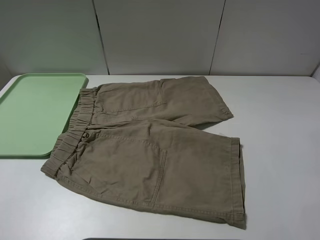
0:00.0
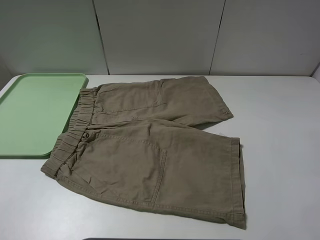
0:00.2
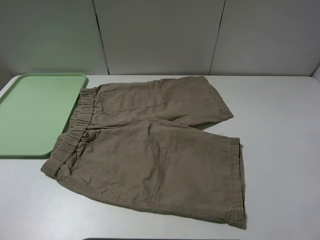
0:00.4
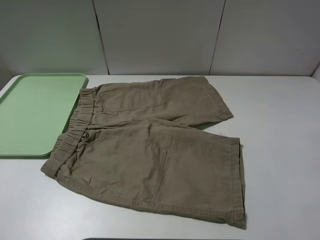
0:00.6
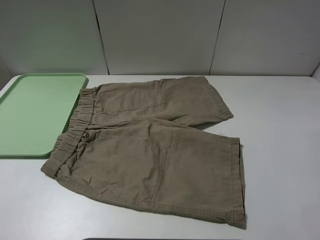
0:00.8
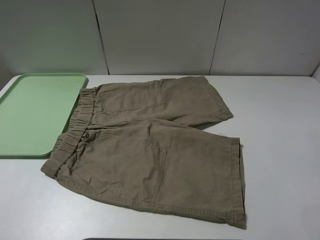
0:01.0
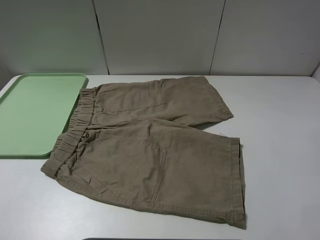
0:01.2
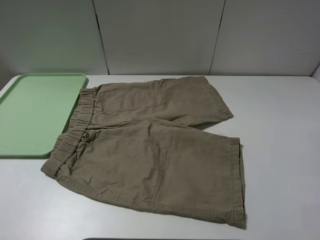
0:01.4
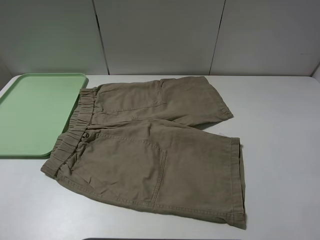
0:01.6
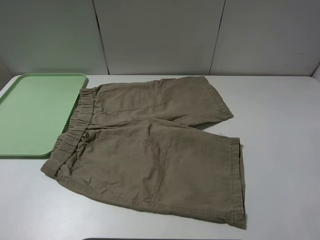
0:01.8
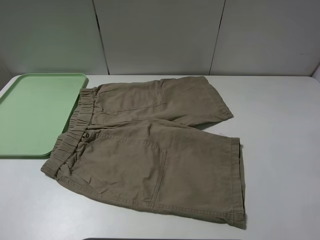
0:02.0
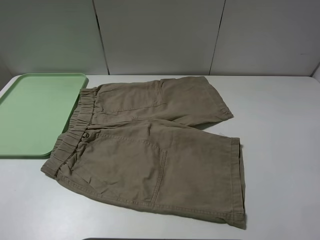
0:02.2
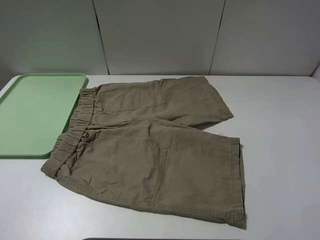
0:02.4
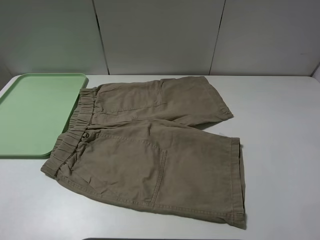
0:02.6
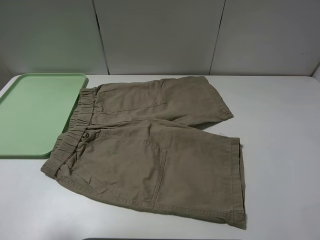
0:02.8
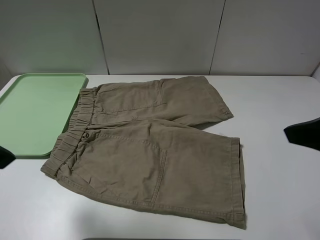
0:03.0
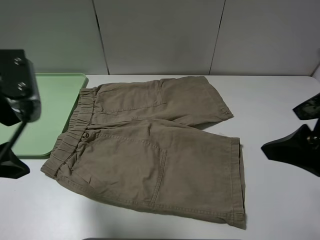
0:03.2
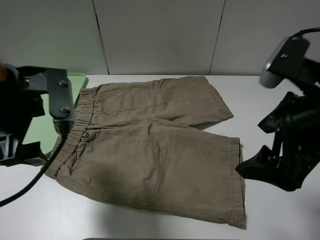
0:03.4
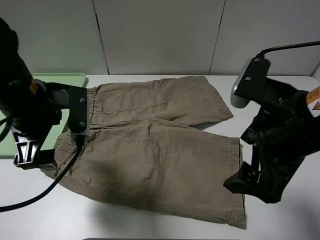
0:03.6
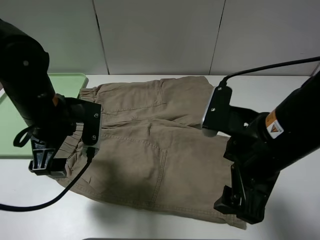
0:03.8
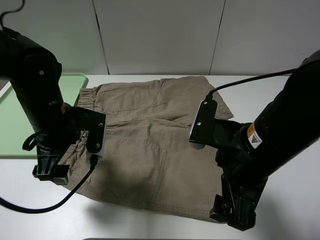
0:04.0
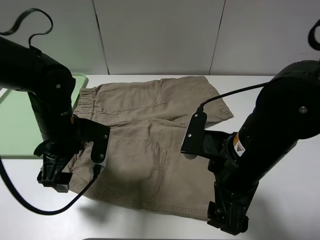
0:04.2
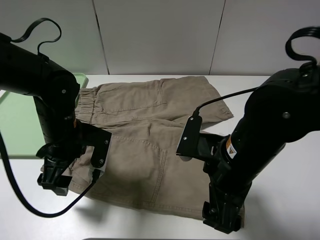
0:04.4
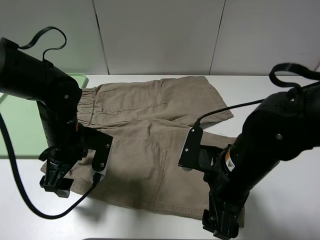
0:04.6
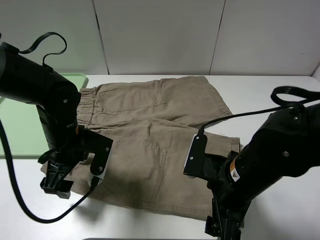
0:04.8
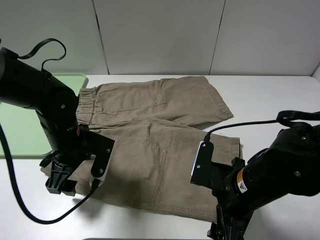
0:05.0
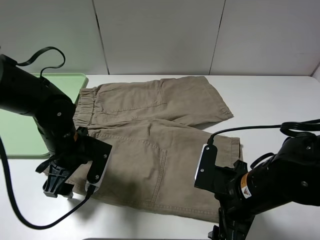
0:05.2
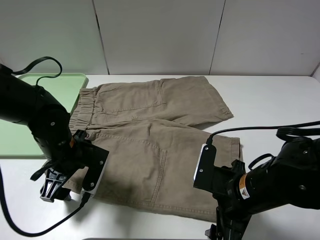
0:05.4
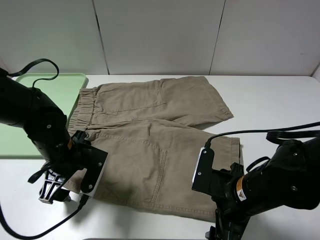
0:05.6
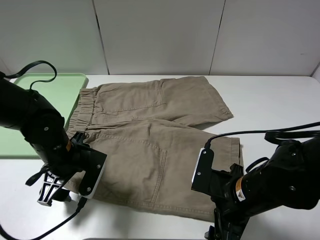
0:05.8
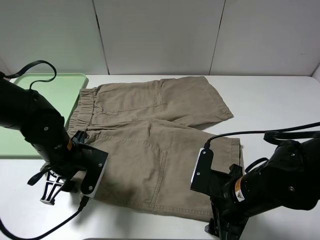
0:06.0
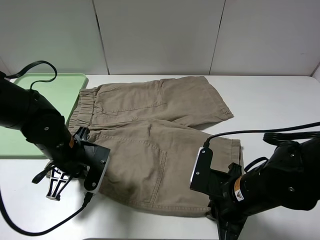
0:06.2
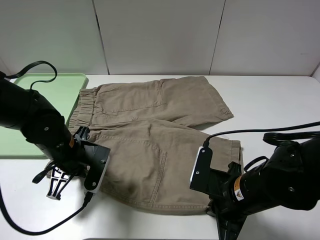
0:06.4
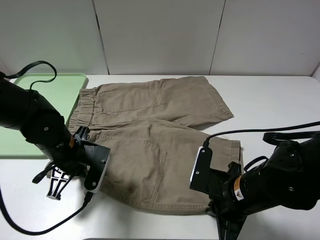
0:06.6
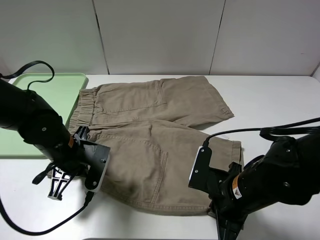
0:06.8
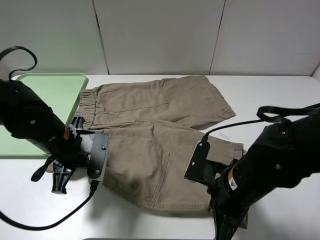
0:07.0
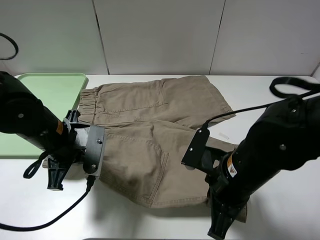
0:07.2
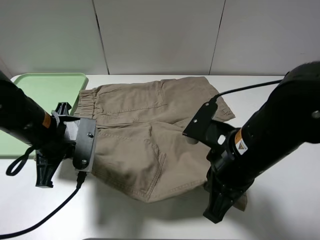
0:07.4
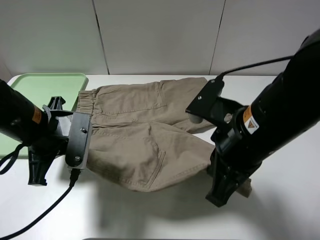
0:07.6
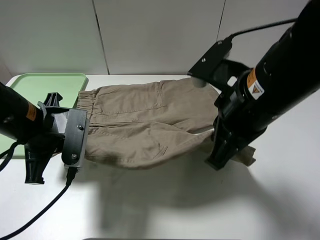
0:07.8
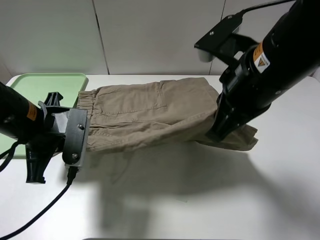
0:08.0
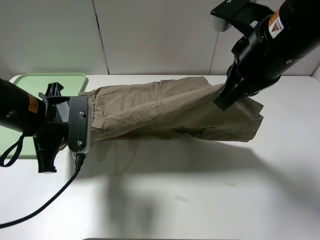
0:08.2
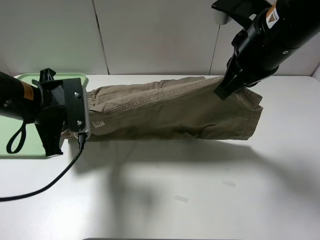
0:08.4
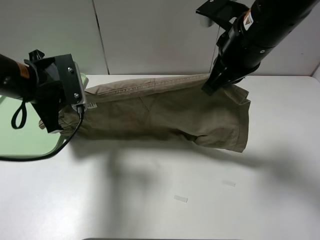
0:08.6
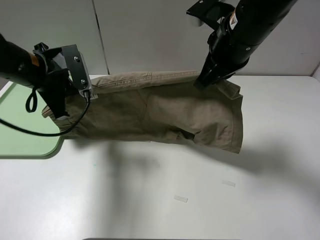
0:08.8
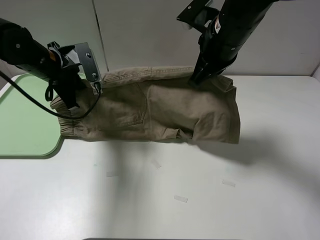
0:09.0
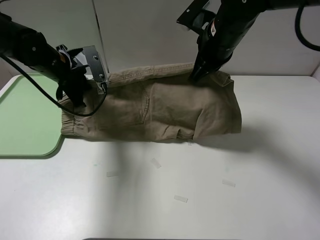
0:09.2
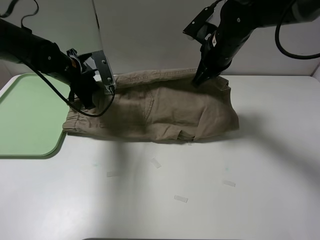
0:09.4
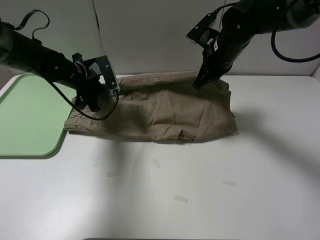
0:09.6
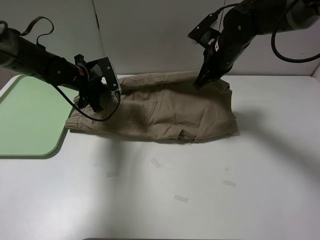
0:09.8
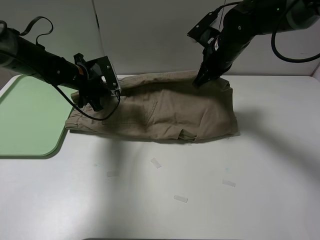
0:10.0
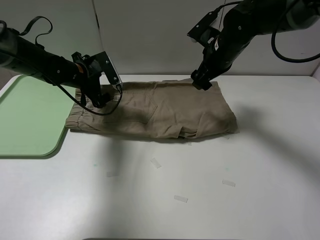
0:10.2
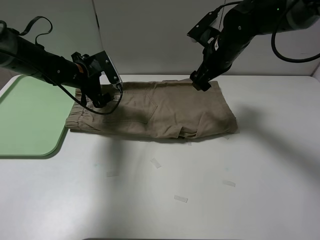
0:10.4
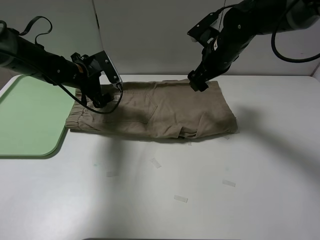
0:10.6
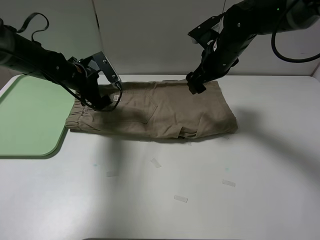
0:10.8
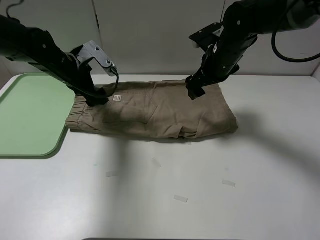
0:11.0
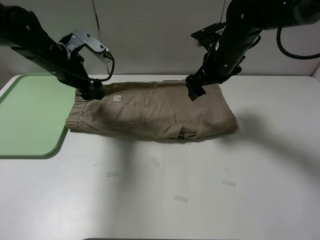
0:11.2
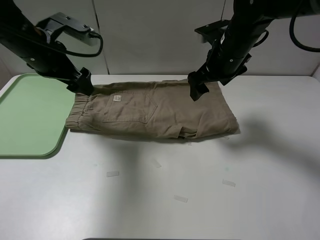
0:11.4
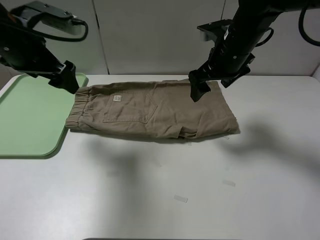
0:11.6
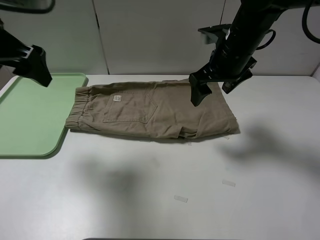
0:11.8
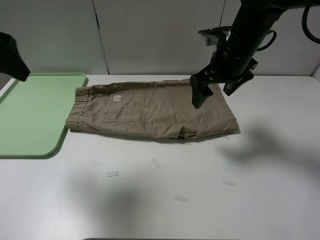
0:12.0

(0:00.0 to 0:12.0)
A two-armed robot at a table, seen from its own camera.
Task of the whole recording: fold the khaki jeans in half with two grippers, then fold them in half again, and use the left claw to place the folded fold khaki jeans on the tray.
Step, 0:00.0 - 0:06.4: Grasp the khaki trousers with the left gripper.
Step, 0:06.6 - 0:10.0: Fold the khaki trousers upwards with the left gripper.
0:00.0 - 0:01.6: Neither gripper changes place.
0:01.6 - 0:03.0: The left gripper shifts about 15 cm forward and to the right; the right gripper is displaced forward and to the left by about 15 cm.
0:03.0 - 0:04.4: The right gripper shifts some 20 cm downward and to the left, while the left gripper shifts some 20 cm downward, forward and to the right.
0:04.4 - 0:06.0: The right gripper heads downward, covering approximately 10 cm; the left gripper closes up.
0:06.0 - 0:07.6: Both grippers travel together upward, roughly 10 cm. The right gripper closes its fingers, while the left gripper closes up.
0:07.6 - 0:09.0: Both grippers move forward, some 15 cm.
0:09.0 - 0:10.4: The right gripper moves forward and downward, roughly 10 cm, and opens up; the left gripper moves downward and forward, some 10 cm, and opens up.
0:10.4 - 0:12.0: The left gripper moves upward and backward, some 30 cm; the right gripper goes about 5 cm backward.

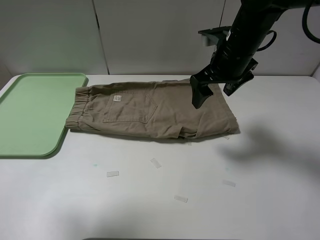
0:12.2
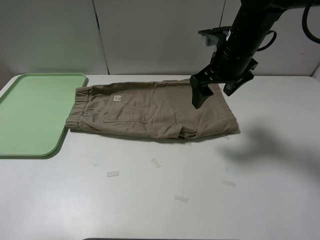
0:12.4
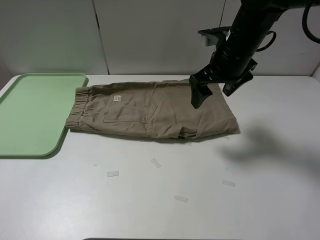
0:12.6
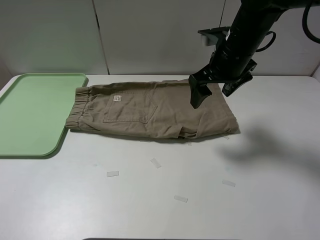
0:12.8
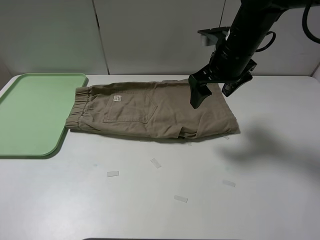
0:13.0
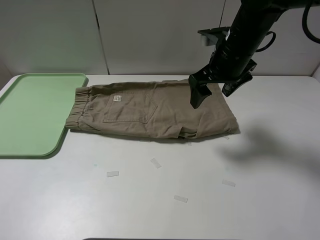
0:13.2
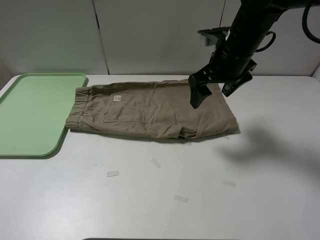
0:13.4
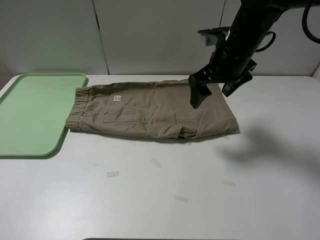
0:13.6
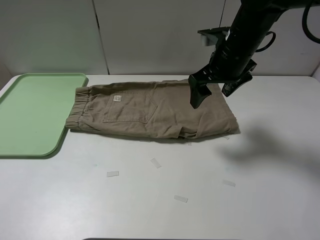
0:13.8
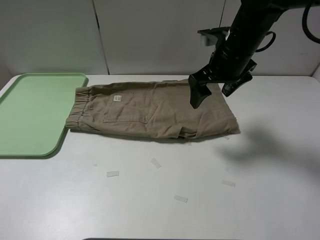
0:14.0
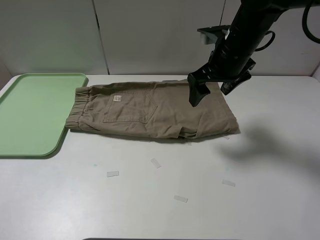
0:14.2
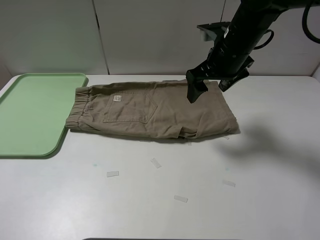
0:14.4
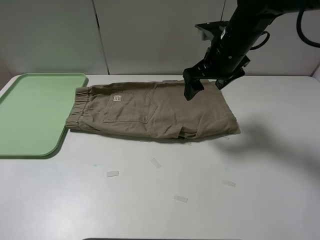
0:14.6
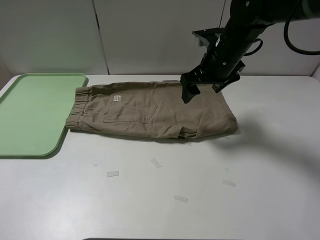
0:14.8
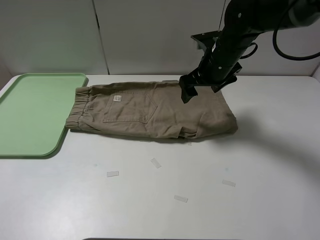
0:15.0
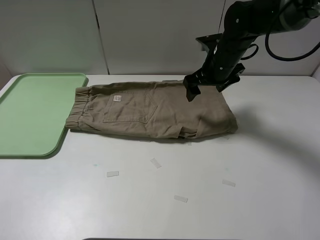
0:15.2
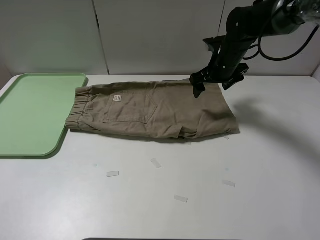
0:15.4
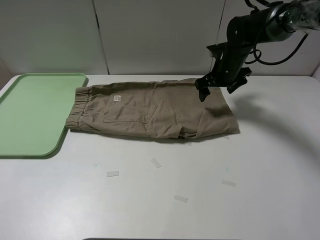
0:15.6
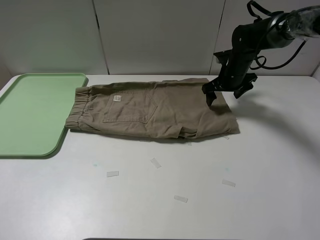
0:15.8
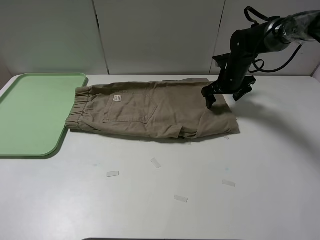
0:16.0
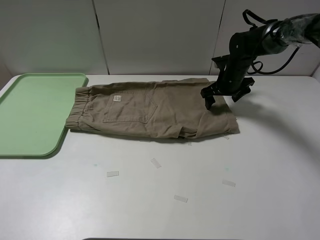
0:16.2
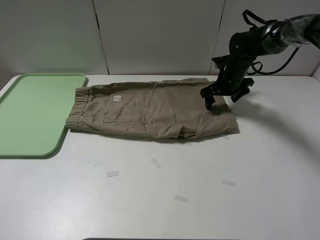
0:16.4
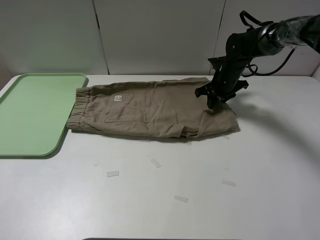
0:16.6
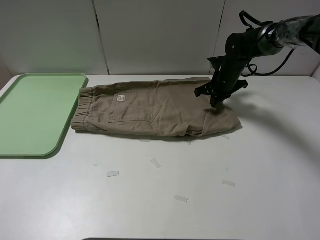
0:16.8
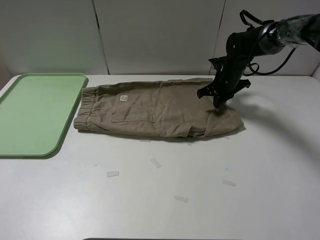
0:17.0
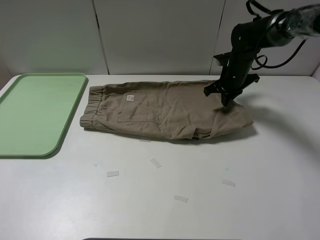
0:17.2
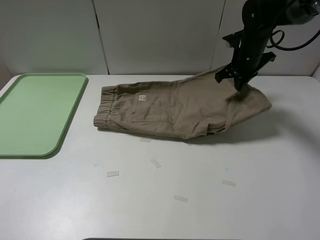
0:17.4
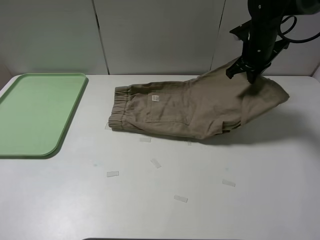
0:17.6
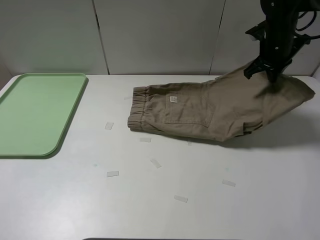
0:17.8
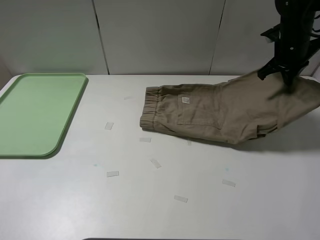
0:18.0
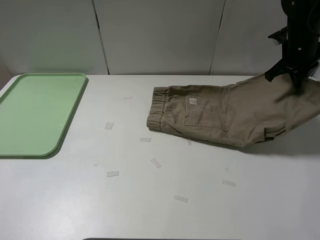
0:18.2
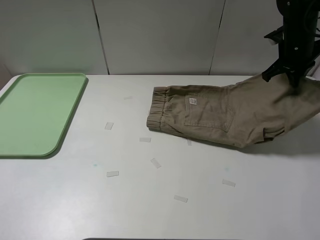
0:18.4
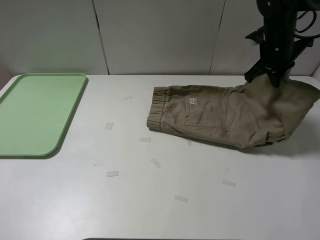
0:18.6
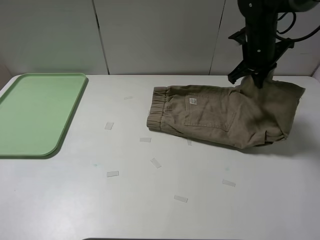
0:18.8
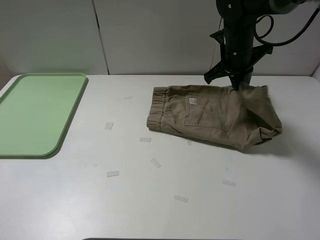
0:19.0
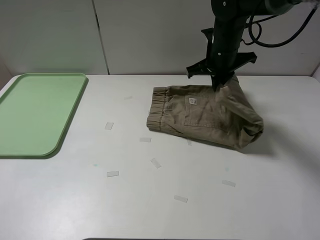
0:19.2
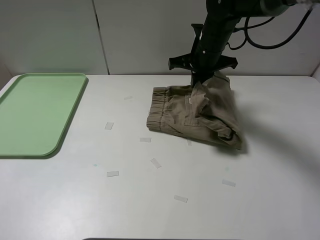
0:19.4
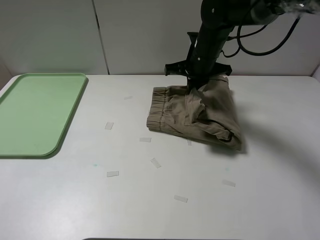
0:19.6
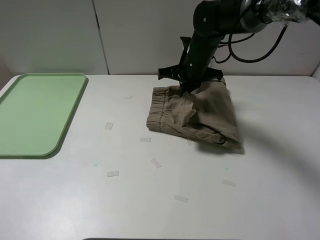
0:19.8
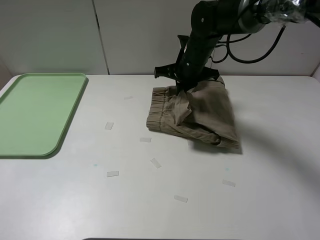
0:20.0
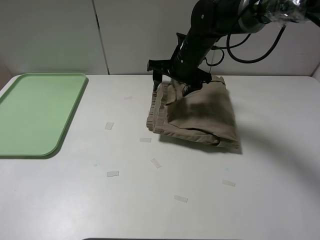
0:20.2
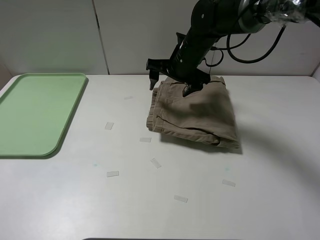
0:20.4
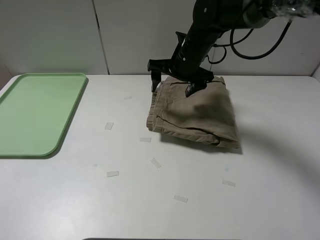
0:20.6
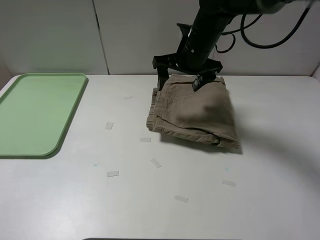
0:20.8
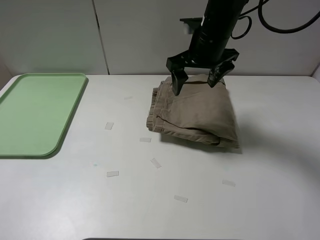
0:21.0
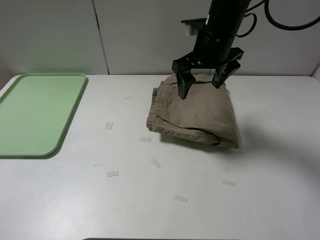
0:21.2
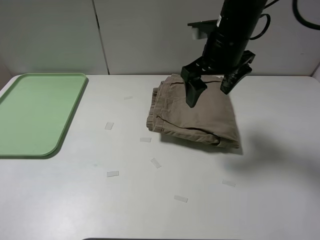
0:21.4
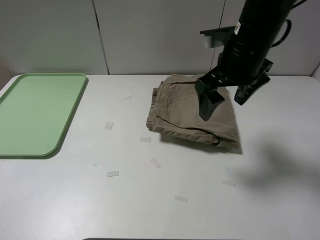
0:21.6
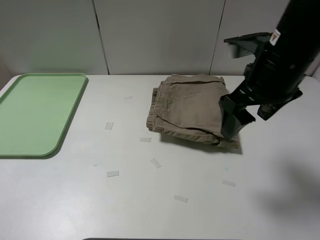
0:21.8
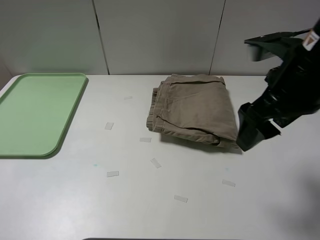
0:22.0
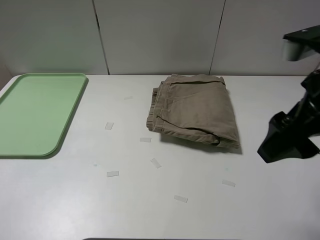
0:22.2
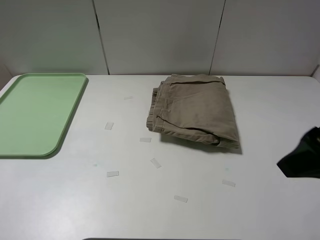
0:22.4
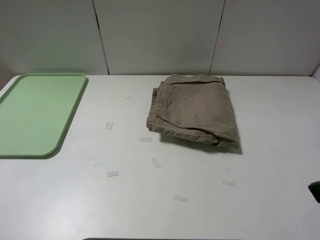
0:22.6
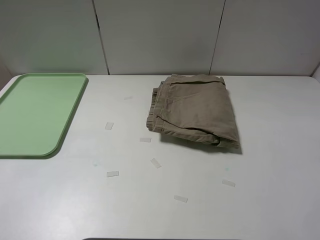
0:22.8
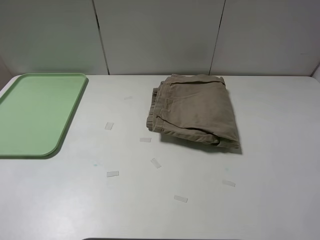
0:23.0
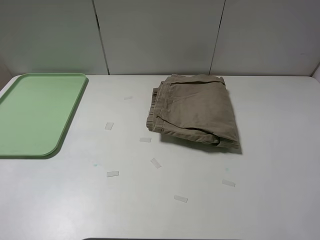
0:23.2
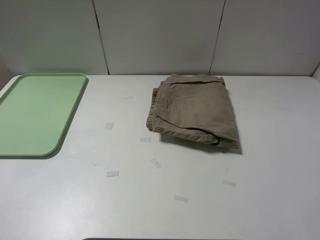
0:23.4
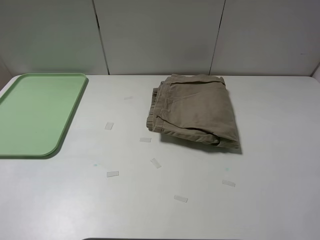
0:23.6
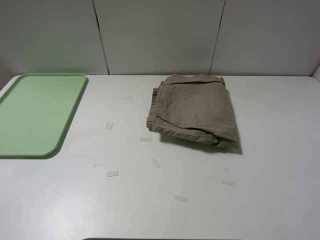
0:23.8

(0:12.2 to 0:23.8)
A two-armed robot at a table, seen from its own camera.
Task of the whole recording: fold the khaki jeans in half with two grippers, then fold them in half again, and use the left claw to place the folded fold khaki jeans on the tray.
Step, 0:12.2 - 0:17.0: Grasp the khaki trousers with the right gripper.
Step, 0:17.2 - 0:20.2: Fold the khaki trousers from right to left with the right gripper.
0:12.2 - 0:13.6: The left gripper is displaced backward and downward by some 15 cm.
0:13.6 - 0:15.0: The right gripper moves roughly 5 cm.
0:15.0 - 0:16.6: The right gripper travels downward, forward and to the right by about 15 cm, and closes up.
0:16.6 - 0:18.0: The right gripper travels upward and to the right by approximately 15 cm.
0:18.0 - 0:19.4: The right gripper heads to the left, covering roughly 20 cm.
0:19.4 - 0:21.0: The right gripper ends up approximately 5 cm from where it was, and opens up.
0:21.0 - 0:22.4: The right gripper moves backward and to the right, approximately 25 cm.
0:22.4 - 0:23.8: The right gripper travels backward and to the right by some 10 cm.
